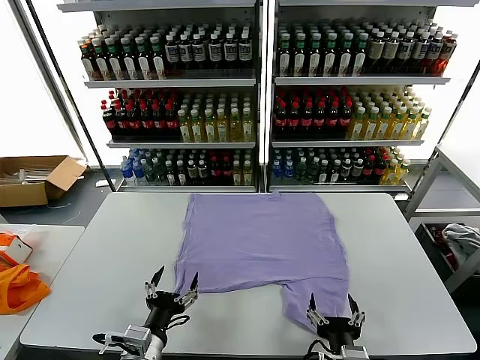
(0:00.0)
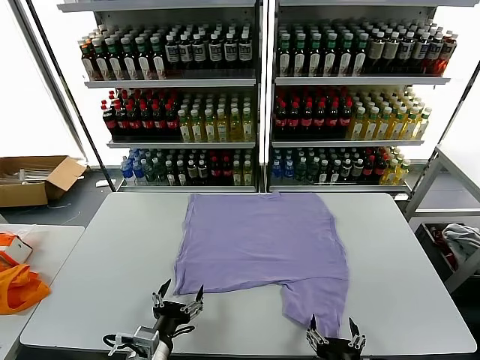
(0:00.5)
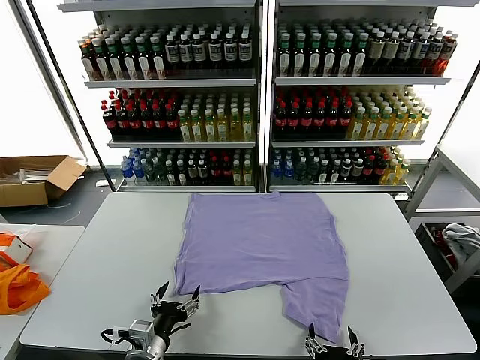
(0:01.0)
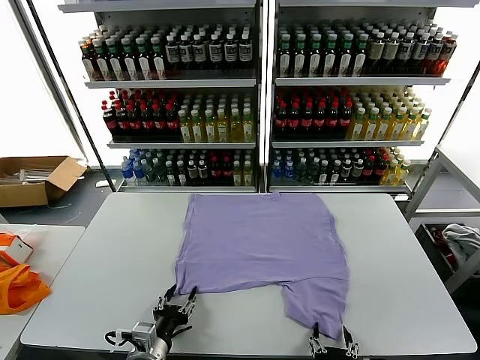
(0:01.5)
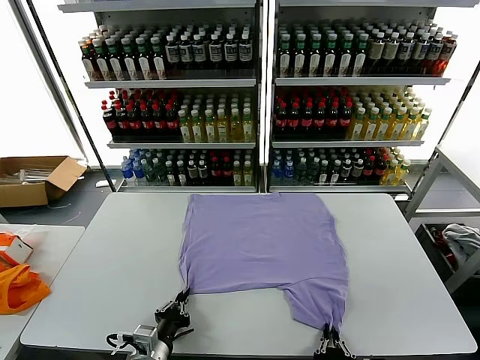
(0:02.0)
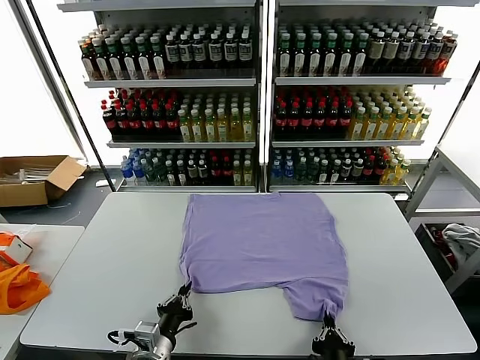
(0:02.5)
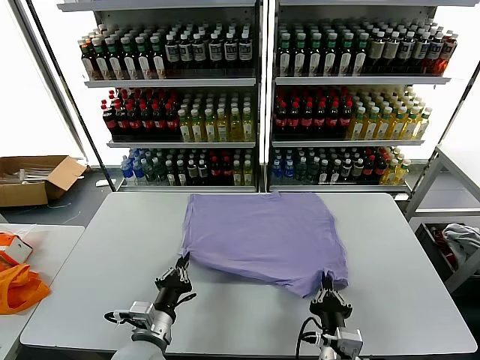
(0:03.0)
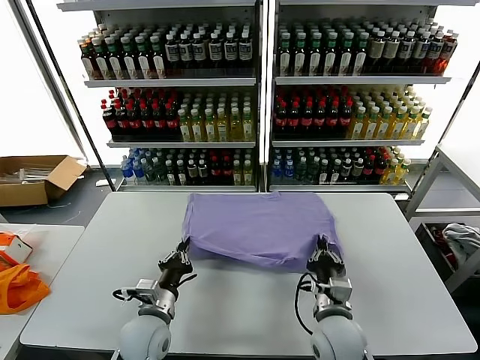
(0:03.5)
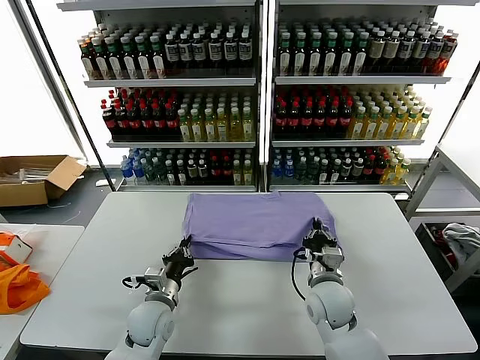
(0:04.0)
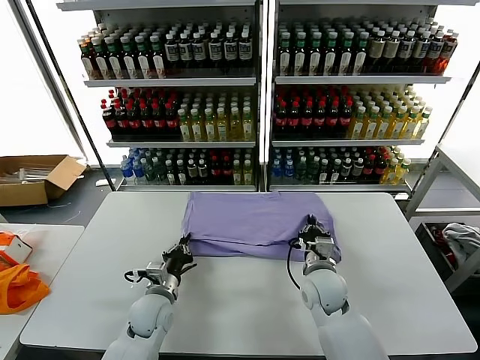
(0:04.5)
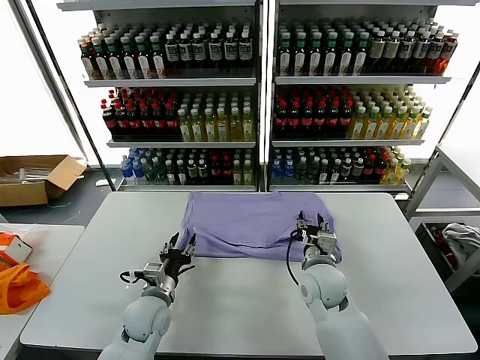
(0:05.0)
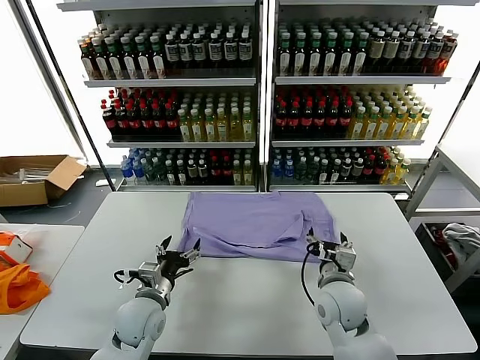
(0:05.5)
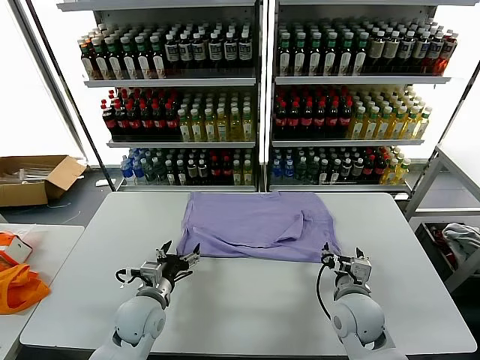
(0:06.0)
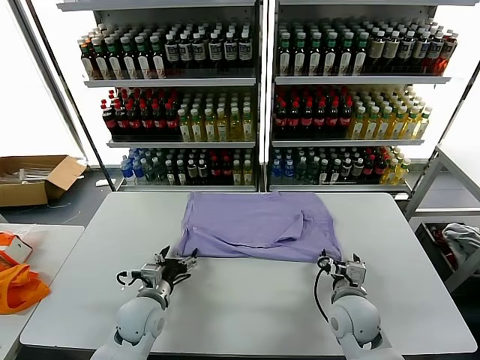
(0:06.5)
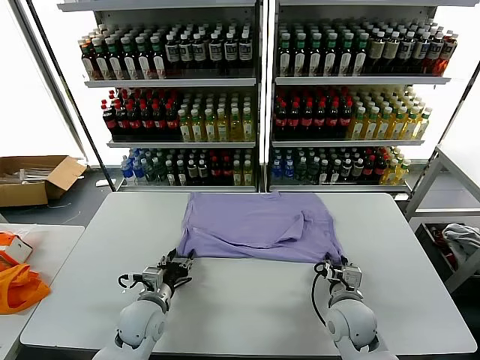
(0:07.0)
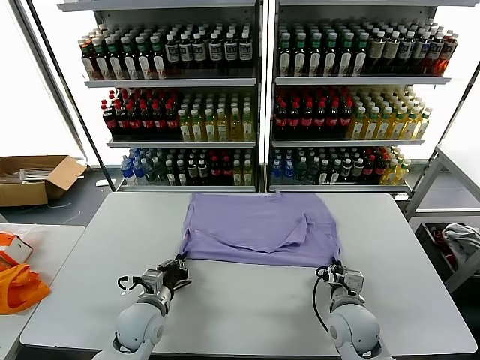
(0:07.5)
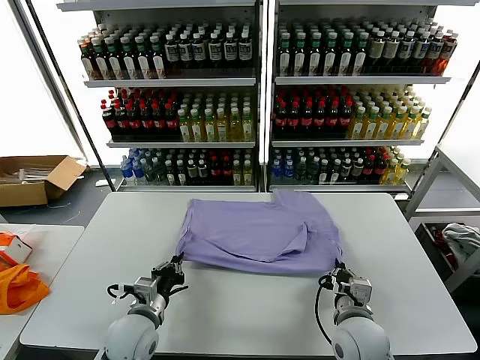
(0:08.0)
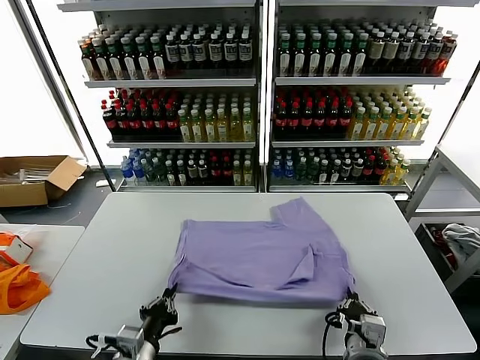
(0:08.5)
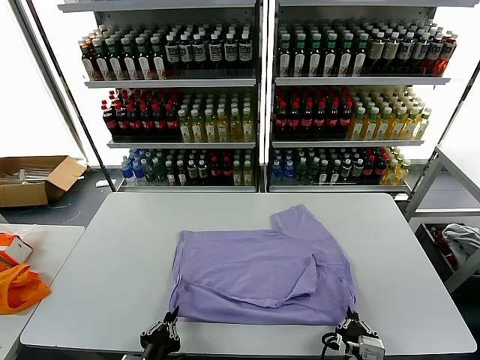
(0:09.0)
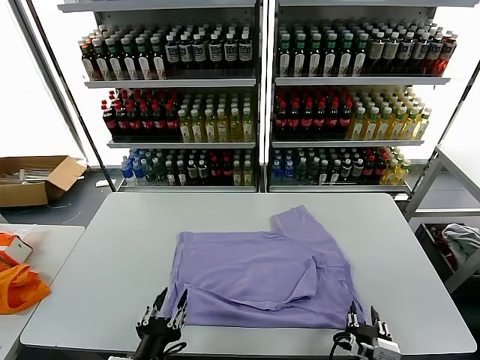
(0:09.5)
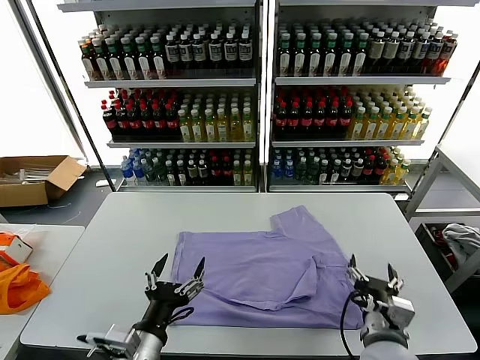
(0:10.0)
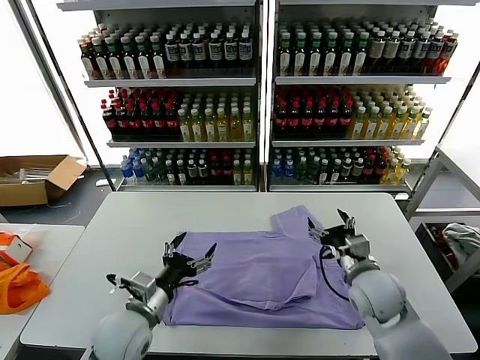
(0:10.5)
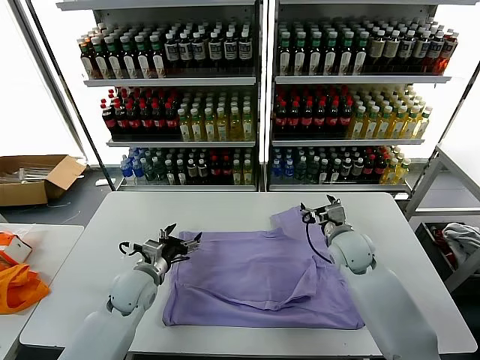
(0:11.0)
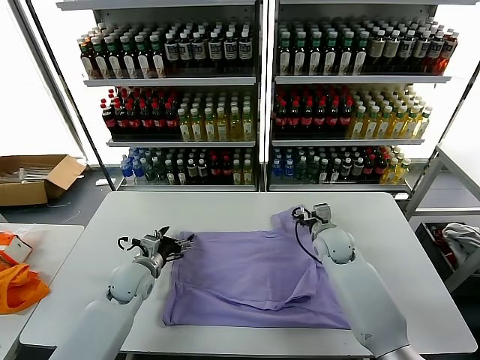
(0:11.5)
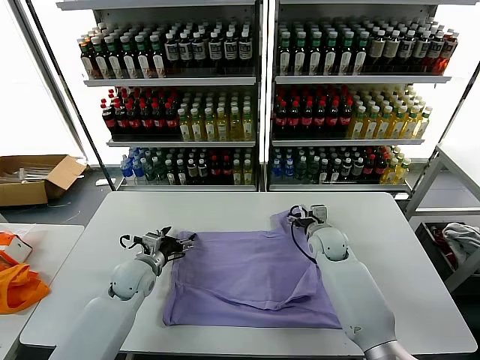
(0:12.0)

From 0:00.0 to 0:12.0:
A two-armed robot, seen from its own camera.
Task of the whole recording: fold and organize the clothes.
Step, from 0:00.0 to 0:02.5: use both grippers simultaneously to clamp the lower edge of the clothing fabric.
Step, from 0:03.0 to 0:04.5: use both grippers to drag the lower edge of the fabric forward and fold it over the upper edge.
Step, from 0:05.0 to 0:09.5: Drag the clothes downward with both gripper.
From 0:02.0 to 0:04.0: The right gripper travels forward by roughly 25 cm. The left gripper shifts roughly 15 cm forward.
From 0:04.0 to 0:06.0: The left gripper opens its fingers. The right gripper ends up about 5 cm from where it was, and opens up.
From 0:06.0 to 0:08.0: Both grippers move backward, roughly 5 cm. The right gripper closes its fingers; the left gripper closes.
From 0:08.0 to 0:10.0: The left gripper goes roughly 15 cm backward and upward, and opens. The right gripper goes backward and returns, approximately 10 cm each way, and opens.
From 0:10.0 to 0:12.0: Both grippers travel together forward, roughly 25 cm.

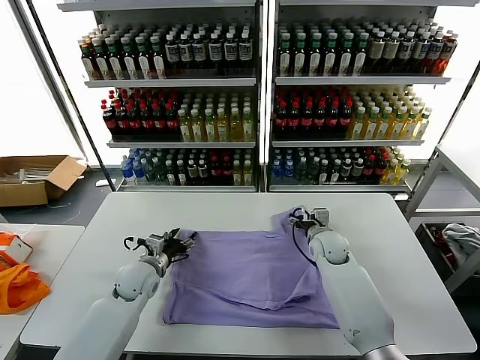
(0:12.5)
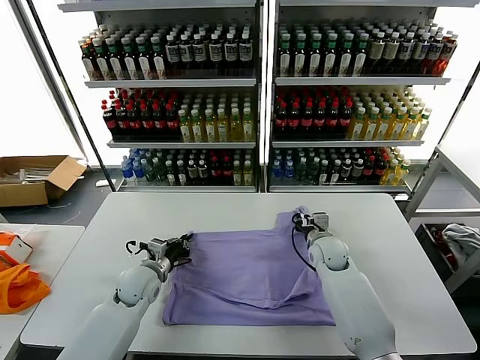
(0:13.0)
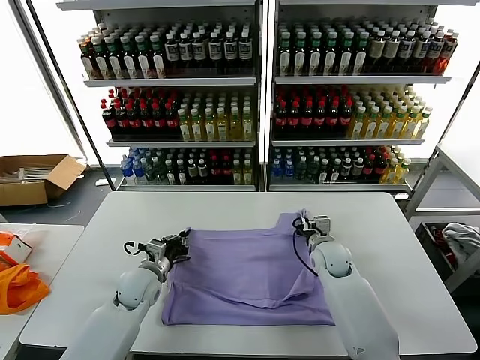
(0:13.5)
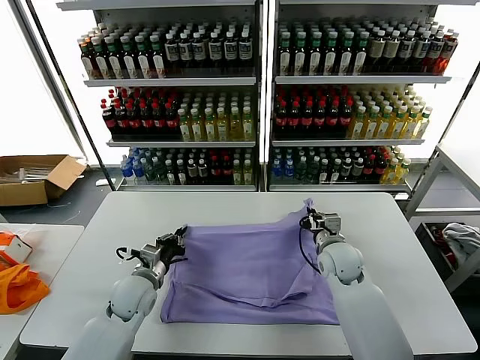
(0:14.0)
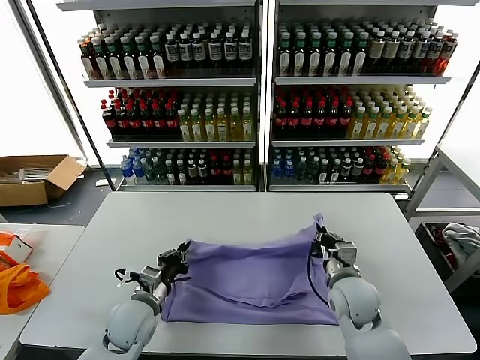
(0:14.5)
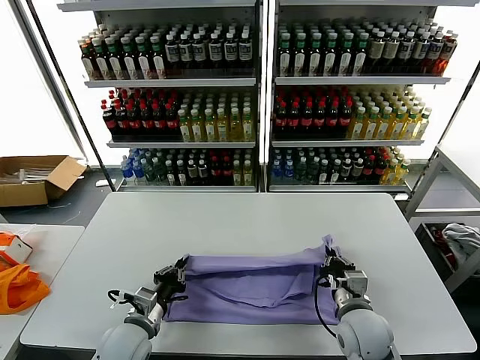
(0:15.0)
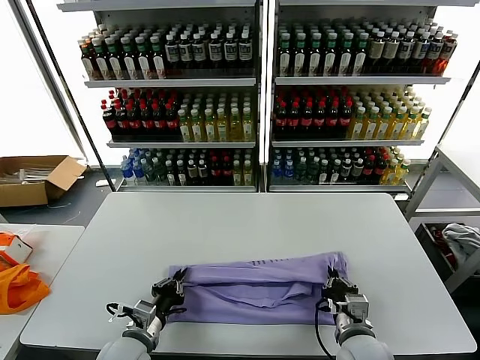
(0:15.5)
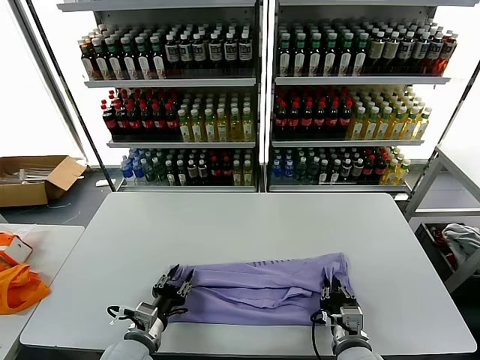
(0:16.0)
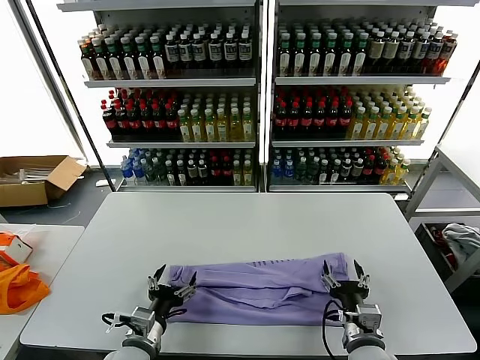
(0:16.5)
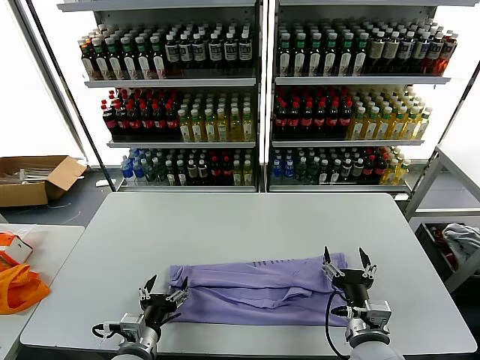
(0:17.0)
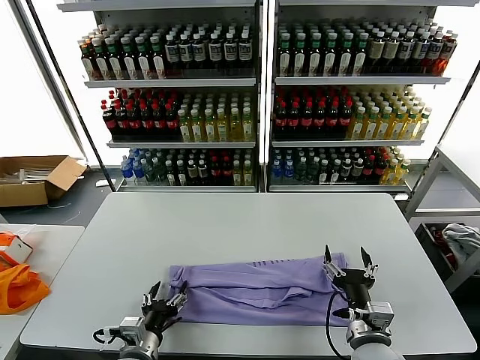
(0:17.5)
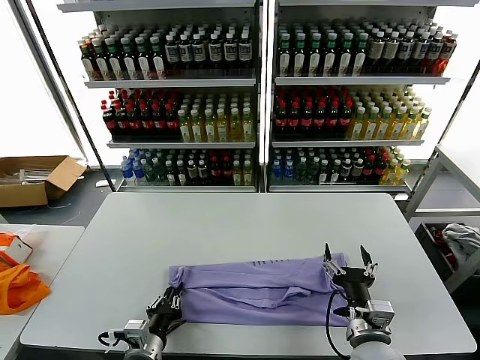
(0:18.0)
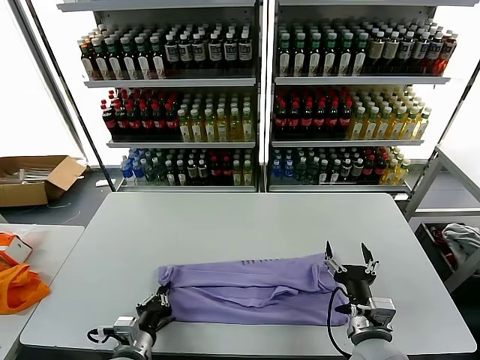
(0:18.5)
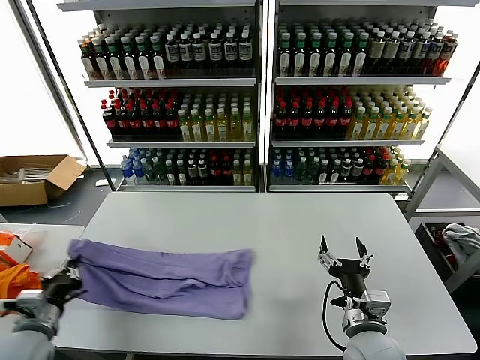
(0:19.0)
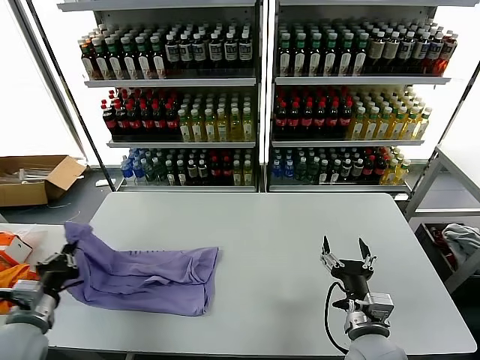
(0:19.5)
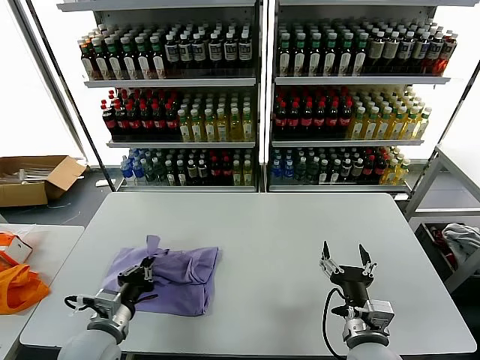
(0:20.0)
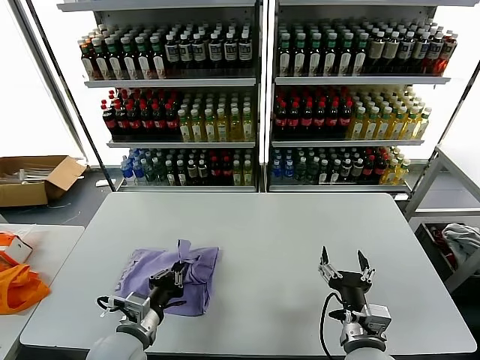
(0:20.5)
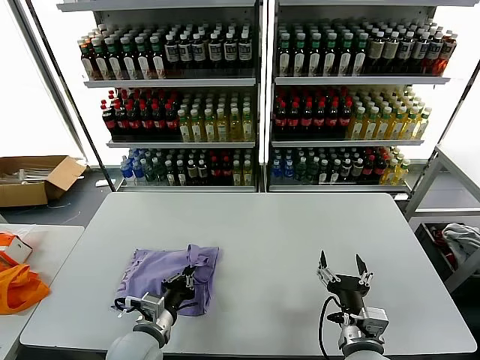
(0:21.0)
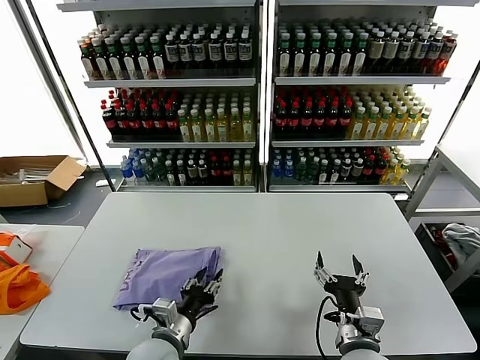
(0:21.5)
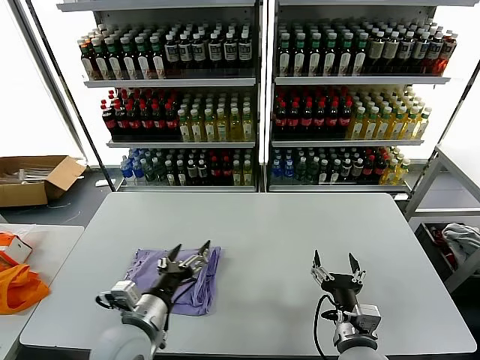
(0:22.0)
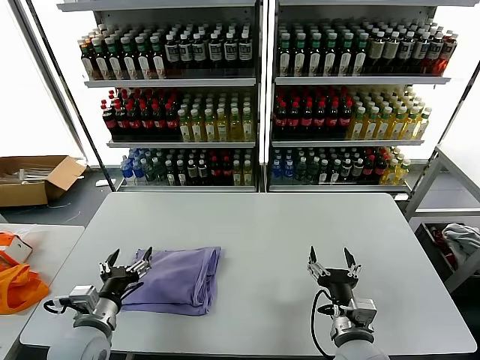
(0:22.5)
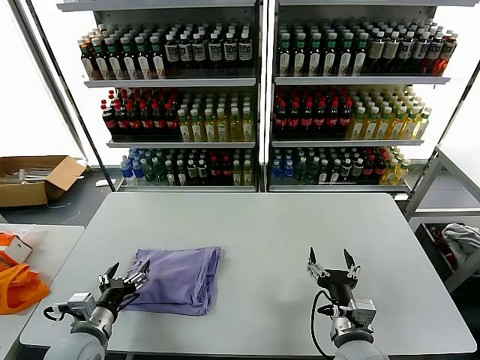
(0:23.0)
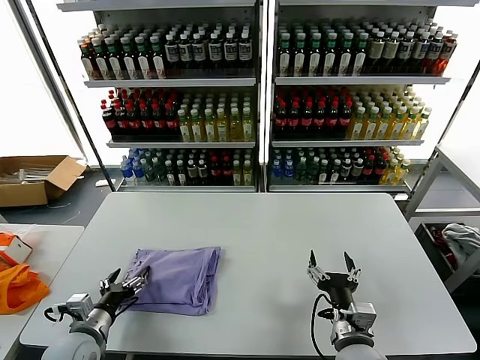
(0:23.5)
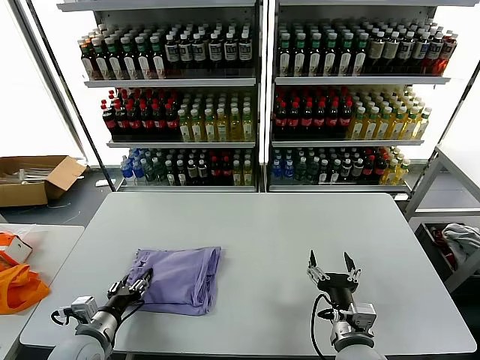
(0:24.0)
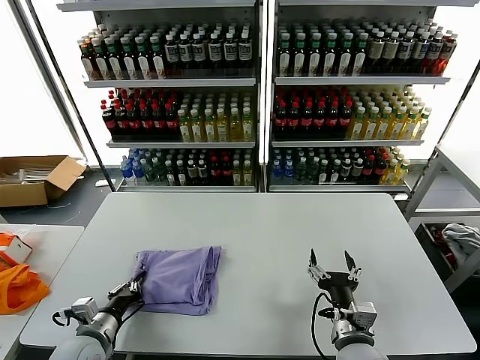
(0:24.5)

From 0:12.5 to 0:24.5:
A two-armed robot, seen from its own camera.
Task of the whole recording: fold and organize the clothes.
Step, from 0:14.0 to 0:16.0: use both grippers to drag the upper edge of the fabric backward and fold it over the lower edge.
Step, from 0:17.0 to 0:18.0: use the left gripper to clamp the left edge of the fabric.
Step, from 0:18.5 to 0:21.5: use the left gripper to drag the left edge of the fabric to the left and folds it over the right edge.
From 0:12.5 to 0:14.5: The right gripper travels backward by roughly 15 cm, and closes up. The left gripper shifts about 10 cm backward, and closes.
From 0:14.5 to 0:16.5: The grippers both shift backward by about 10 cm. The left gripper opens; the right gripper opens.
From 0:16.5 to 0:18.5: The left gripper closes its fingers.
From 0:18.5 to 0:20.5: The left gripper heads upward, covering roughly 5 cm, and travels to the left and back again, about 15 cm each way.
From 0:20.5 to 0:22.5: The left gripper is displaced to the left by approximately 5 cm, and opens.
From 0:22.5 to 0:24.5: The left gripper goes roughly 5 cm downward, and closes.

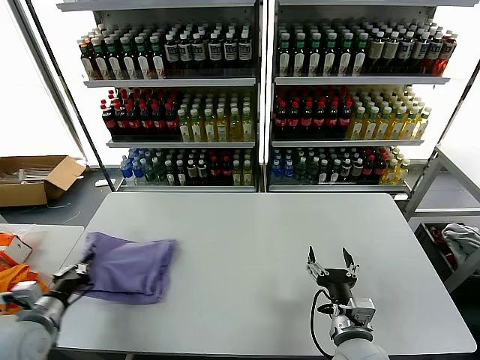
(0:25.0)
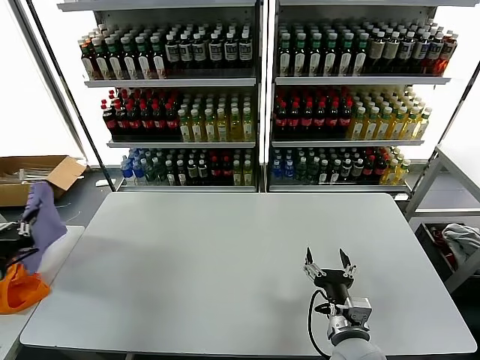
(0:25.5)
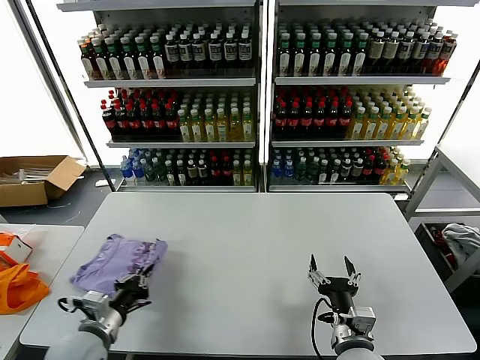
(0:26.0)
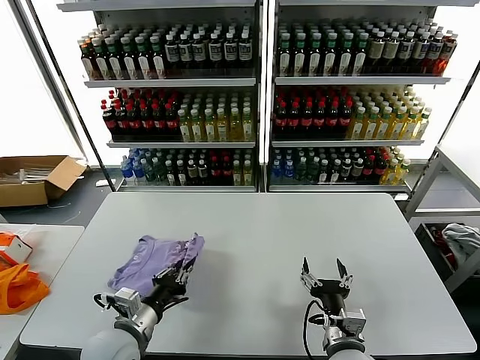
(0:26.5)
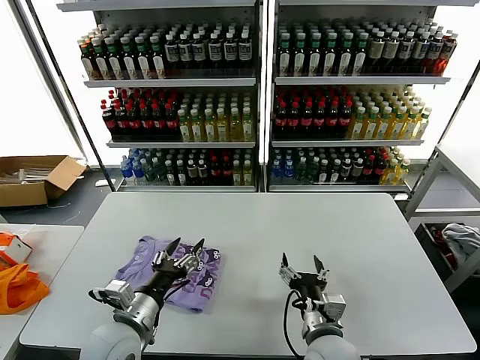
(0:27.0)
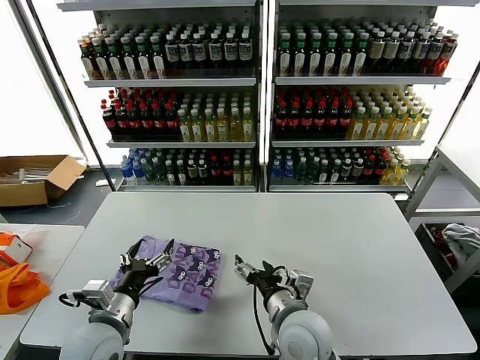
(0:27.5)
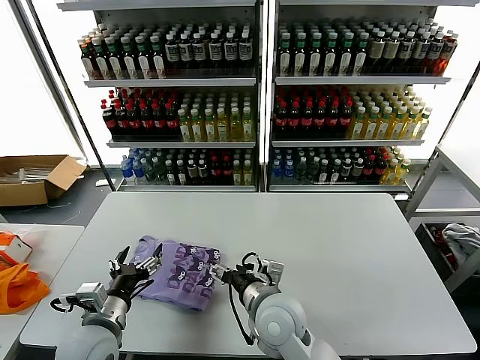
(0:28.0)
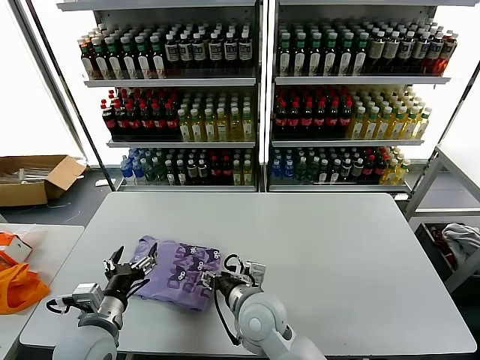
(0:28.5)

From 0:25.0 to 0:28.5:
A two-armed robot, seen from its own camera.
Task of the whole recording: fold and organize the clothes.
From 0:25.0 to 0:27.0: The left gripper moves to the right, about 20 cm, and opens its fingers. The right gripper moves to the left, roughly 5 cm.
From 0:27.0 to 0:28.5: The right gripper travels to the left and forward by approximately 15 cm.
